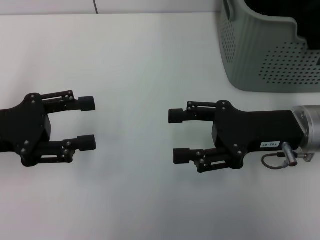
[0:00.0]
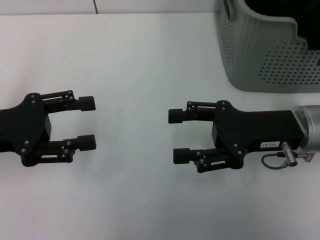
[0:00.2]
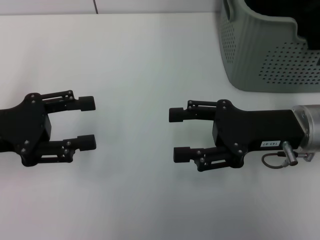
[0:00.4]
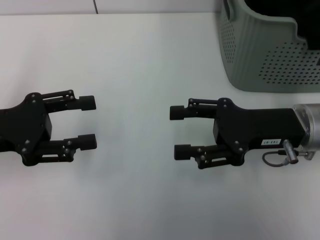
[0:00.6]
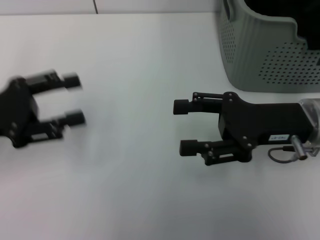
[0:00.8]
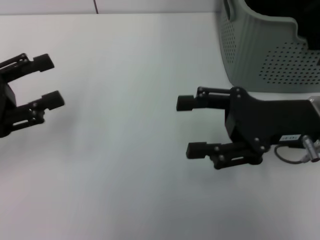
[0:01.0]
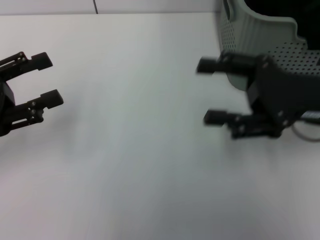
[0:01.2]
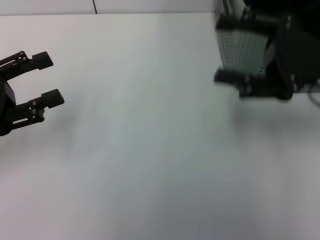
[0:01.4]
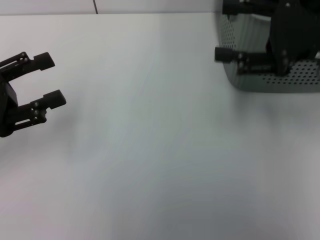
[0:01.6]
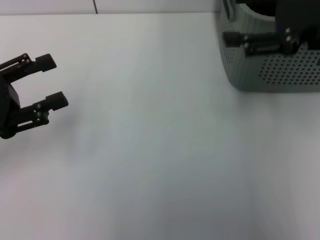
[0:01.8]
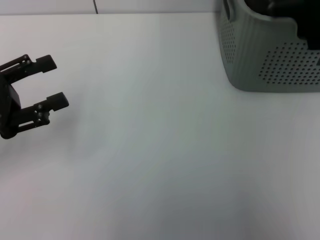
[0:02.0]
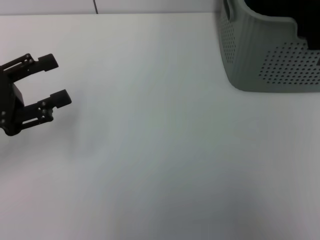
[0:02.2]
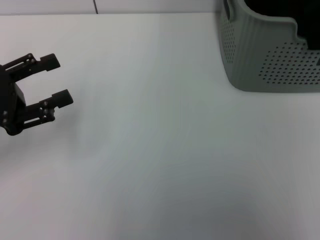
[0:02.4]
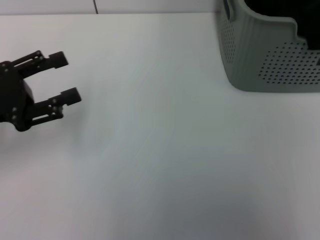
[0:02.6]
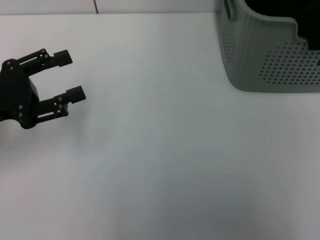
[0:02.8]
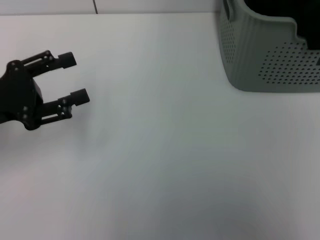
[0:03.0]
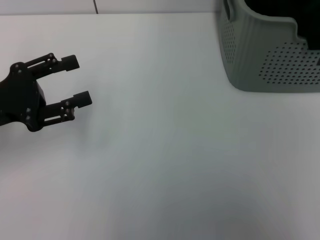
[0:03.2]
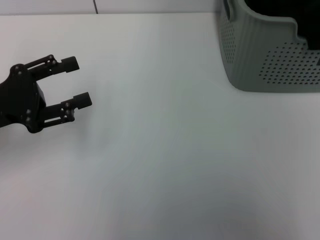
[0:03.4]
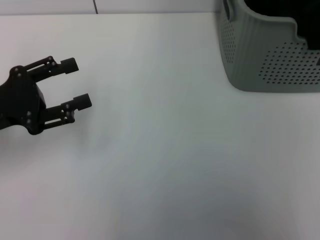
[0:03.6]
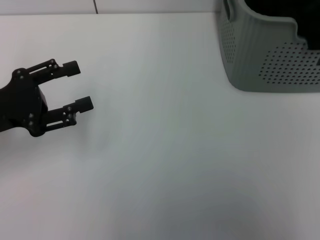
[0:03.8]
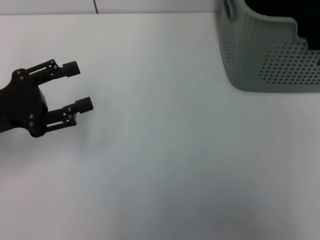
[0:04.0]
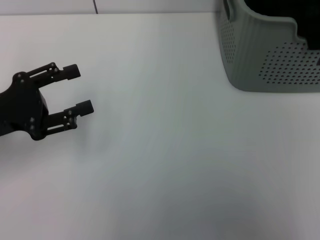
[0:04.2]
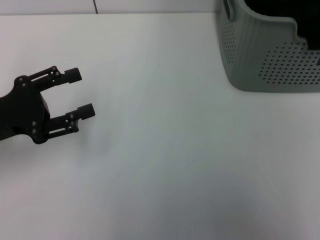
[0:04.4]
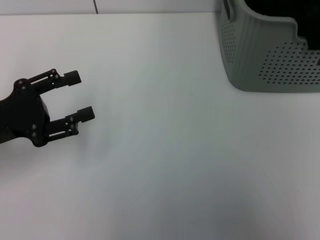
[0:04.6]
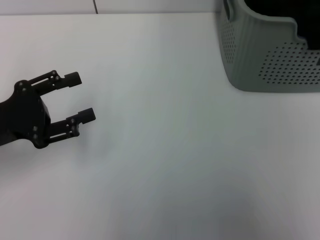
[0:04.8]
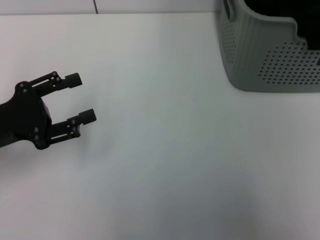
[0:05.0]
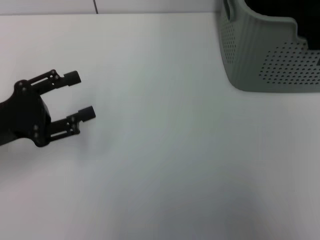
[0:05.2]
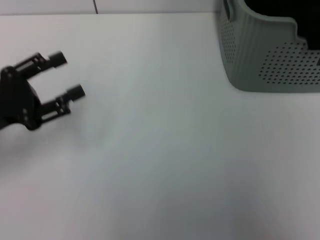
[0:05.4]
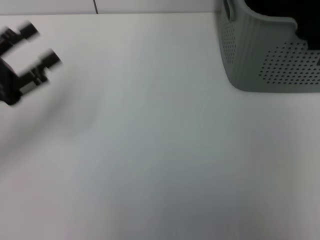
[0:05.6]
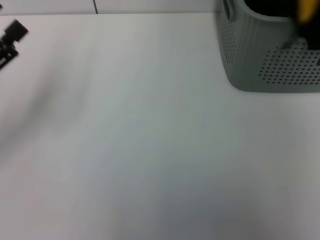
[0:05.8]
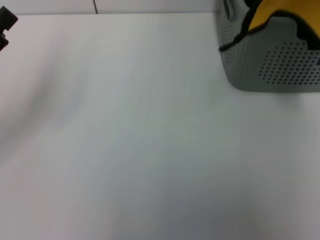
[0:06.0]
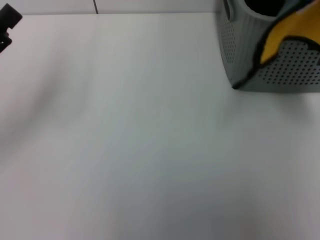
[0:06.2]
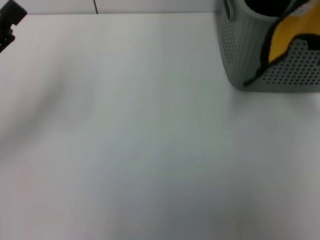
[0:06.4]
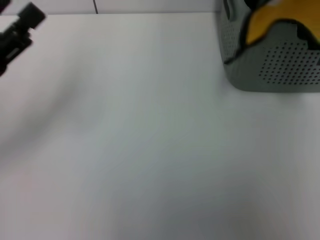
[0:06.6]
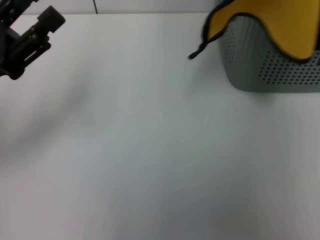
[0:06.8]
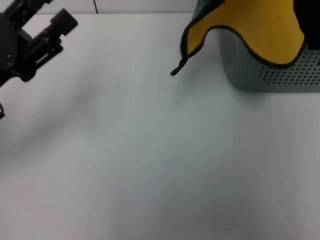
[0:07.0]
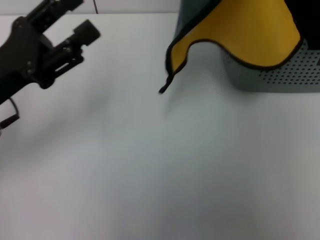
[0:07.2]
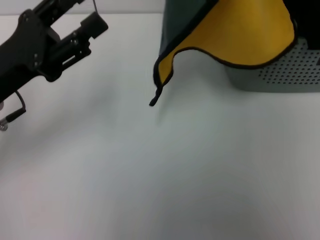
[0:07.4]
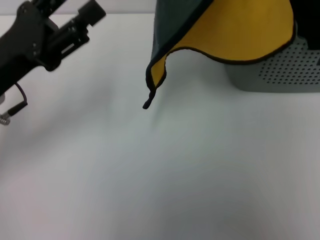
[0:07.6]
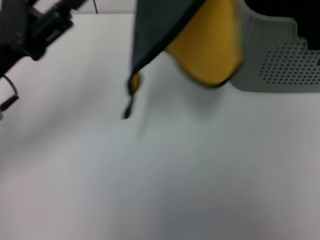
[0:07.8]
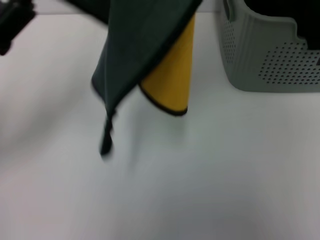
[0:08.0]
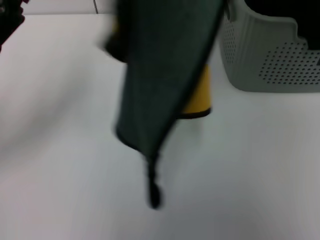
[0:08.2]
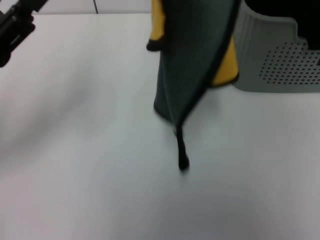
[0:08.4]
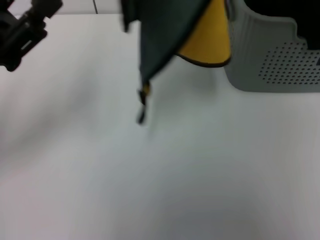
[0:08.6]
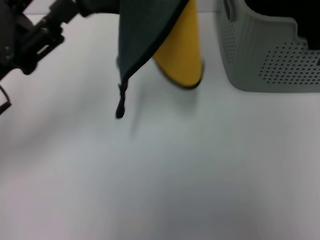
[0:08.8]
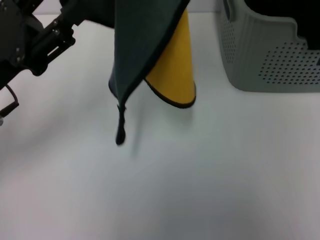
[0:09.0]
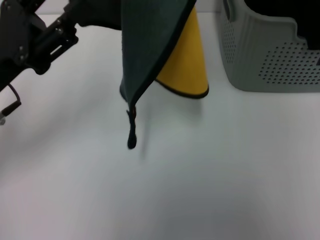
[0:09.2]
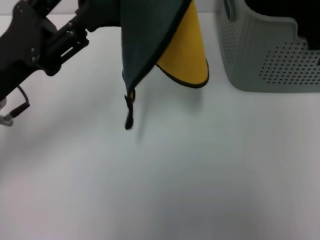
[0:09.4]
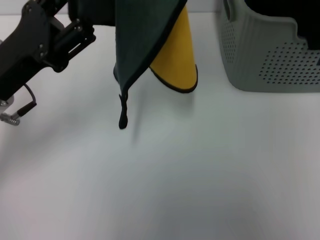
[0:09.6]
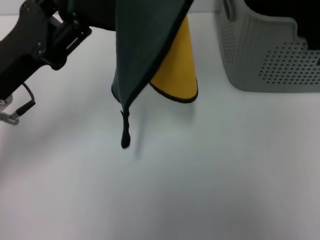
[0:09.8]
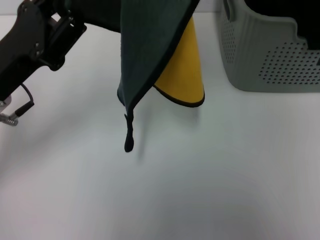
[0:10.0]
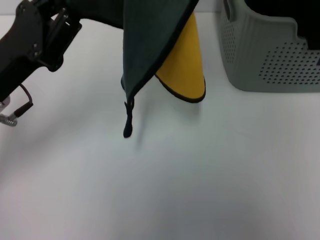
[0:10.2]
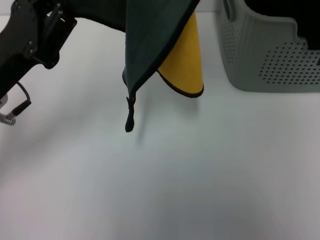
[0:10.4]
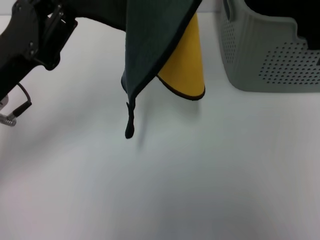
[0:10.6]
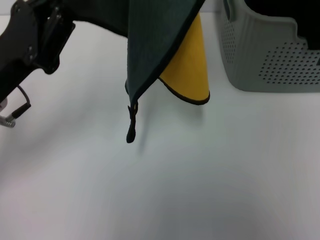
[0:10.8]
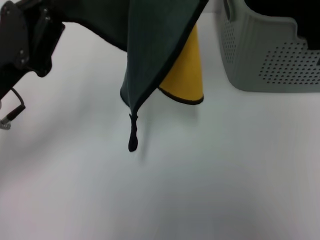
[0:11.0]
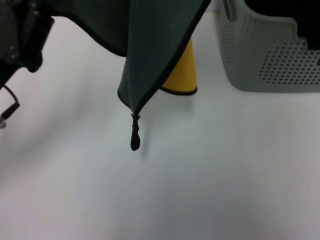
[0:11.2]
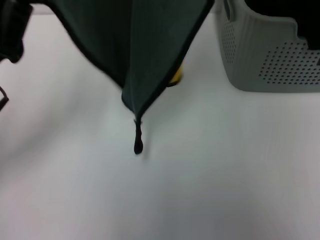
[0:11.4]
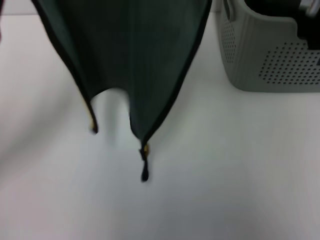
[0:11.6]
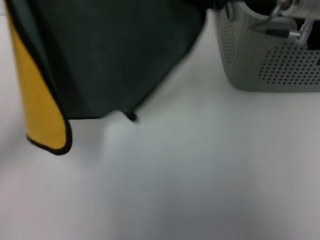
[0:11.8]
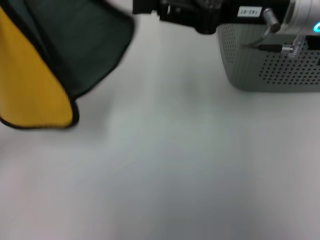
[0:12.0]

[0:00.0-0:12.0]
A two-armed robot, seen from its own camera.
Task of the whole recording: pick up the towel from the storage box and lay it flat on the table.
Step, 0:00.0 to 0:04.2: Pick up a towel with the right gripper.
Step, 0:04.6 to 0:10.2: Spread the towel flat with the right gripper.
0:00.0 to 0:01.6: The right gripper heads upward and to the right, covering some 15 cm.
0:01.6 to 0:03.0: The right gripper heads upward, covering roughly 15 cm.
0:03.0 to 0:04.4: The grippers make only small movements.
0:04.4 to 0:06.0: The right gripper is displaced to the right by roughly 10 cm, and closes up.
0:06.0 to 0:07.6: The left gripper goes approximately 10 cm to the right, while the right gripper moves to the left, approximately 15 cm.
0:09.0 to 0:10.4: The left gripper closes.
0:10.4 to 0:12.0: The right gripper moves downward, approximately 10 cm; the left gripper ends up some 5 cm from where it was.

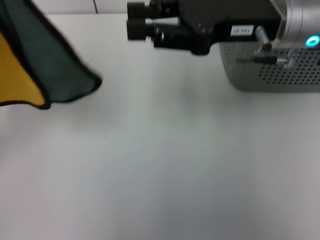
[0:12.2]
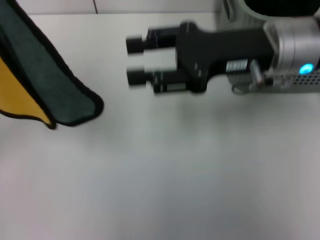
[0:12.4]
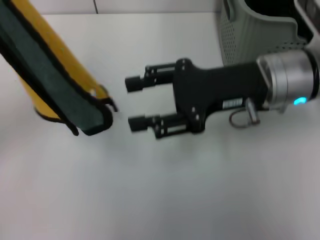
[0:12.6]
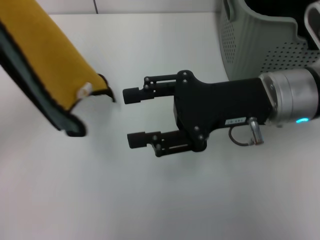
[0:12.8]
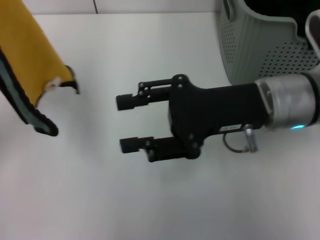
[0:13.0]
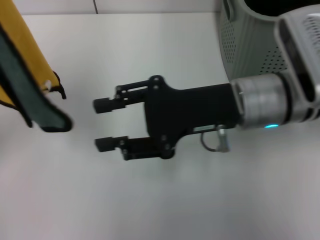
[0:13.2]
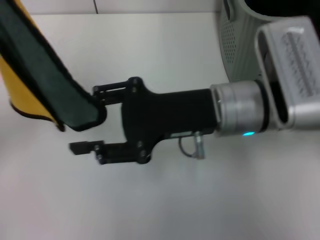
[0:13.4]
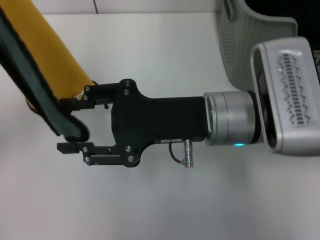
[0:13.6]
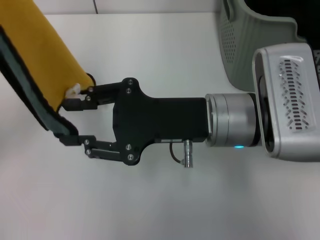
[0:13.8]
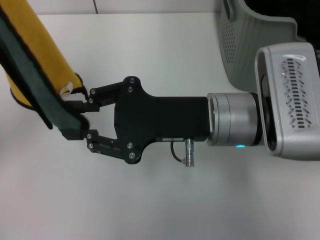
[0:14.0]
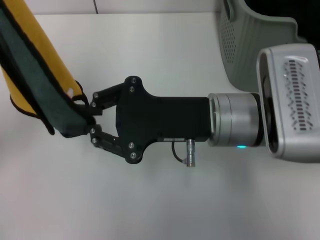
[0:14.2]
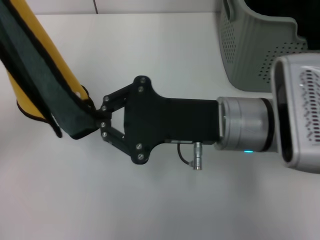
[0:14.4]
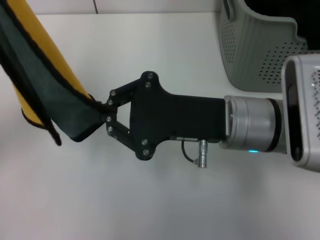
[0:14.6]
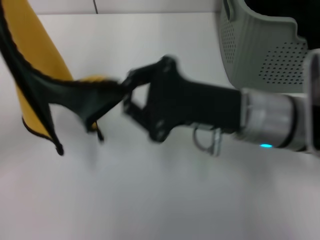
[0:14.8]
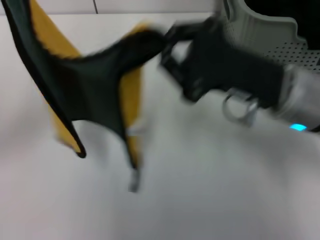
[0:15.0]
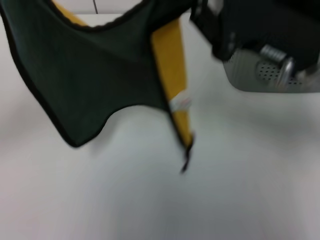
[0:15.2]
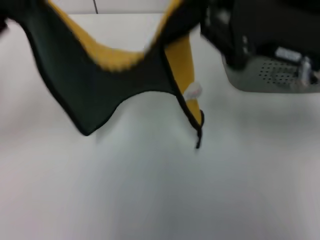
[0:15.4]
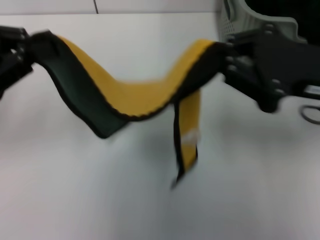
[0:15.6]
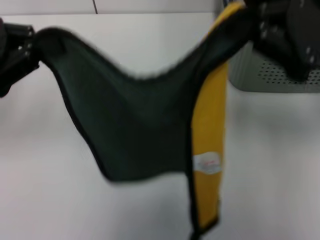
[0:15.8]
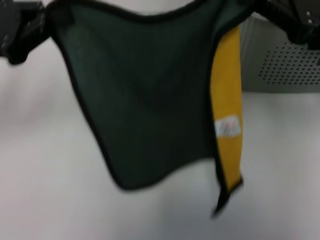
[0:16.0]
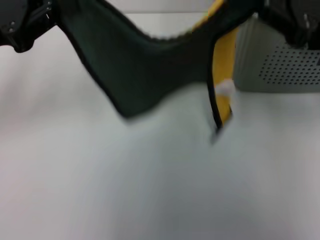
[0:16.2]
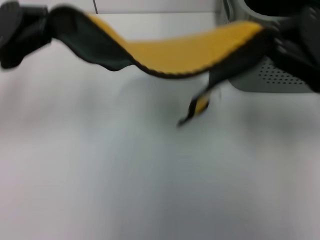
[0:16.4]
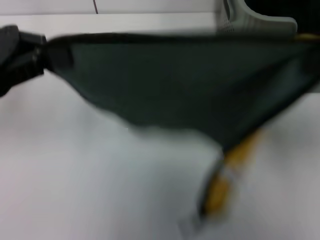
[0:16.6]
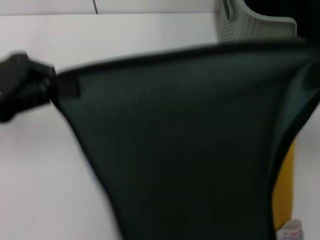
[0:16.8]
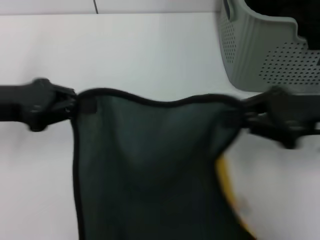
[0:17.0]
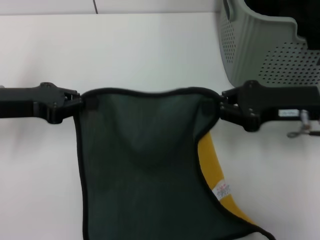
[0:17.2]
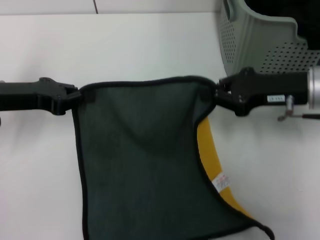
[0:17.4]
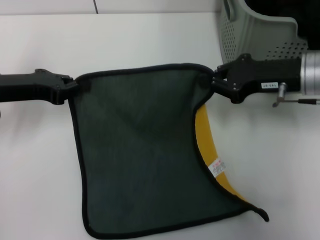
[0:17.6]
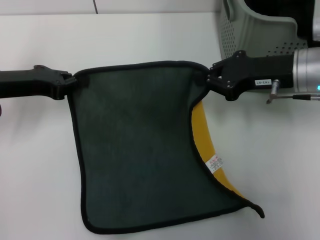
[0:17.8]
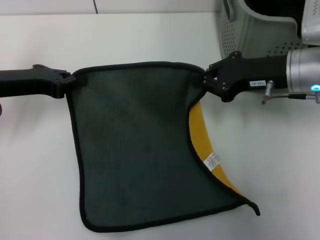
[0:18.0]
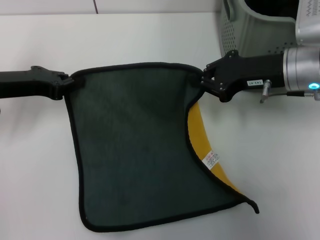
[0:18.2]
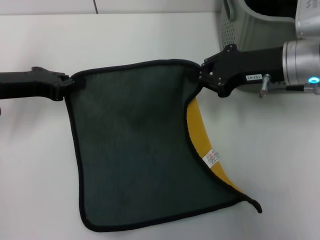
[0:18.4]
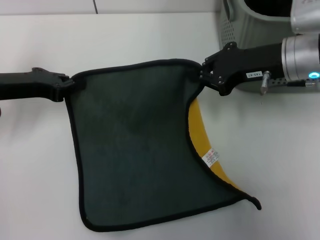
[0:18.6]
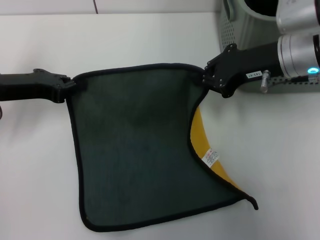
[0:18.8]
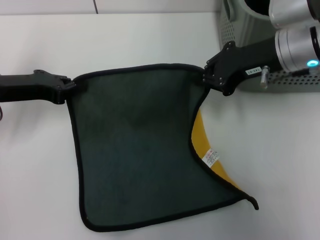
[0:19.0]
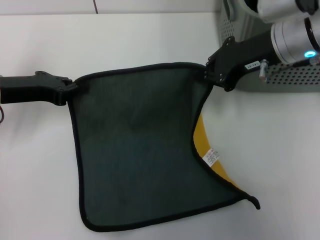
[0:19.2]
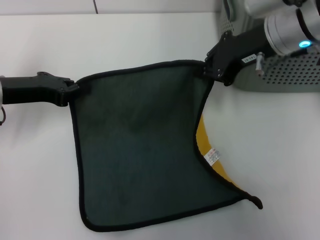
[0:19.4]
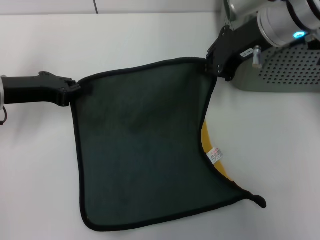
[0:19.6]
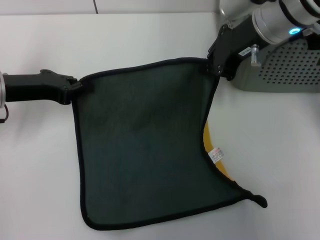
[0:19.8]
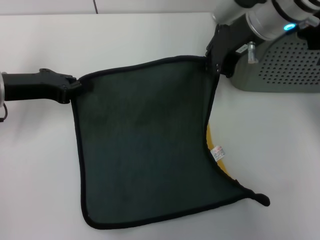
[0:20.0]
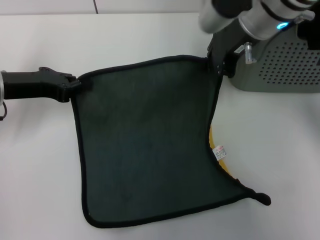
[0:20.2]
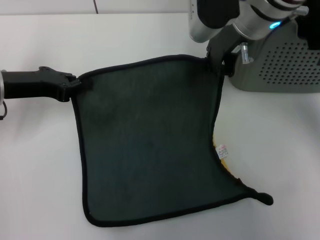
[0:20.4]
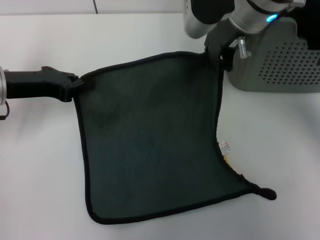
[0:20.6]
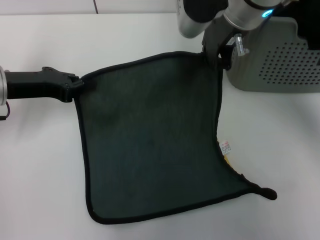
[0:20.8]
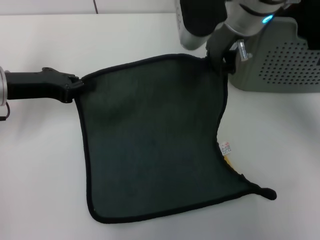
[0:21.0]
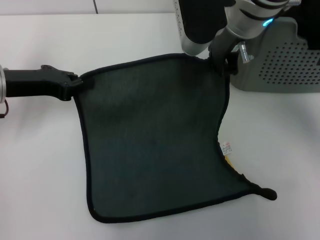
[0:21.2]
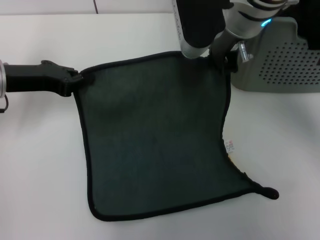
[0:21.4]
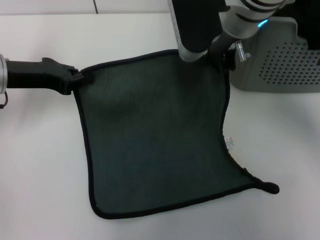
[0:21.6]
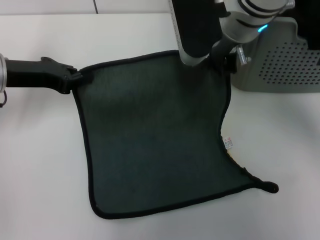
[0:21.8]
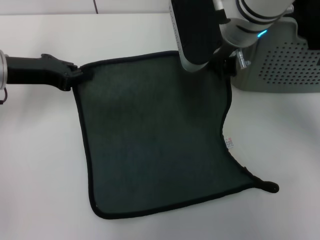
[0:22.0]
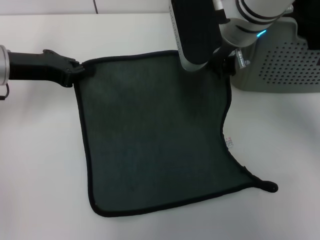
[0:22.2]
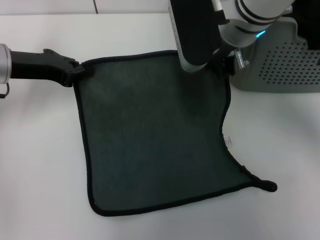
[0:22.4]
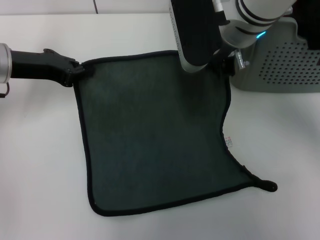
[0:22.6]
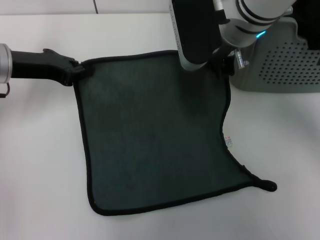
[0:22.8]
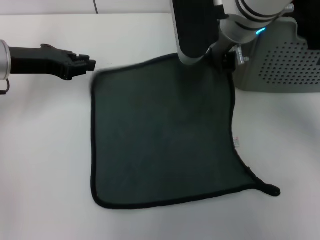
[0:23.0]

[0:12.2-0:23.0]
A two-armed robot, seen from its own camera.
Task of the whole recording: pick up the towel from the storage box and lay it flat on the table.
0:12.2 to 0:13.8: The right gripper shifts roughly 10 cm backward, downward and to the left, and opens up.
0:13.8 to 0:15.2: The right gripper heads to the right, covering roughly 10 cm, and closes.
0:15.2 to 0:16.8: The right gripper moves to the right, about 10 cm.
0:16.8 to 0:18.4: The left gripper heads downward and forward, covering approximately 10 cm; the right gripper is displaced forward, to the left and downward by some 15 cm.
0:18.4 to 0:20.0: The right gripper heads upward and to the left, covering about 10 cm.
0:21.4 to 0:23.0: The grippers make only small movements.
